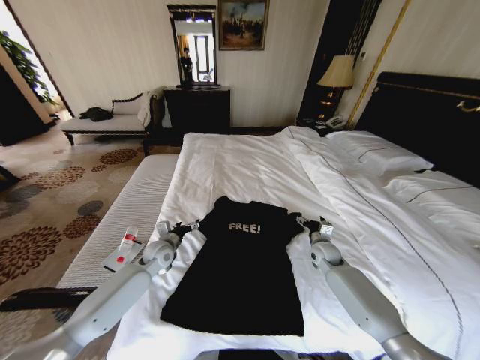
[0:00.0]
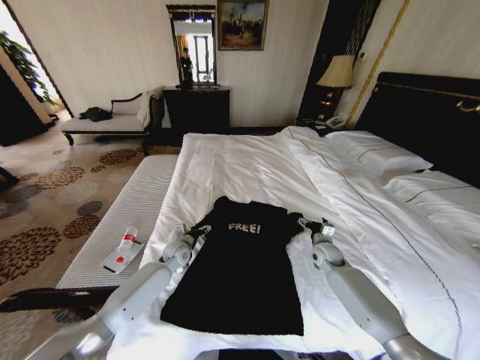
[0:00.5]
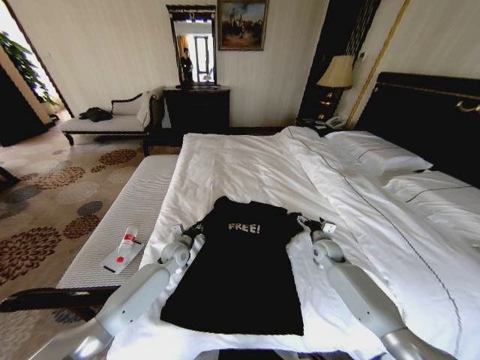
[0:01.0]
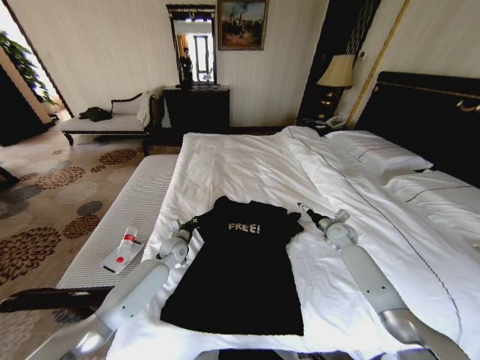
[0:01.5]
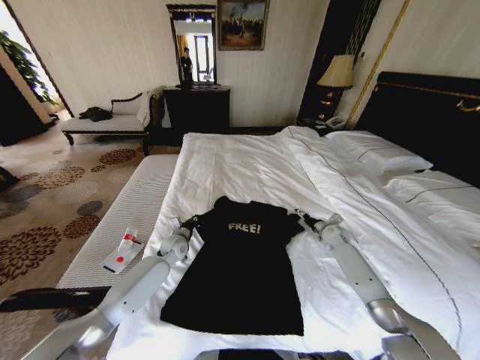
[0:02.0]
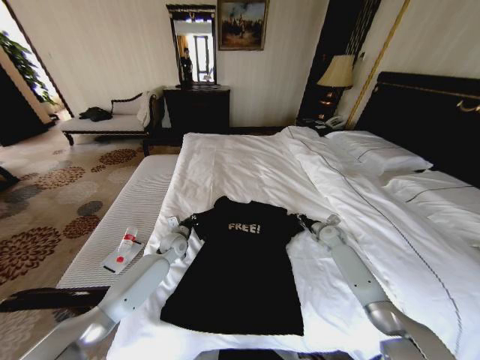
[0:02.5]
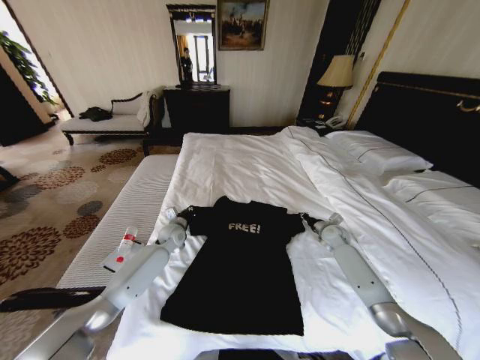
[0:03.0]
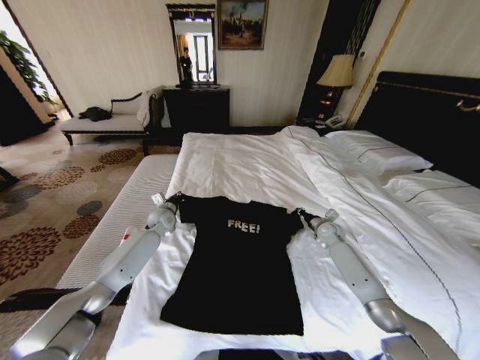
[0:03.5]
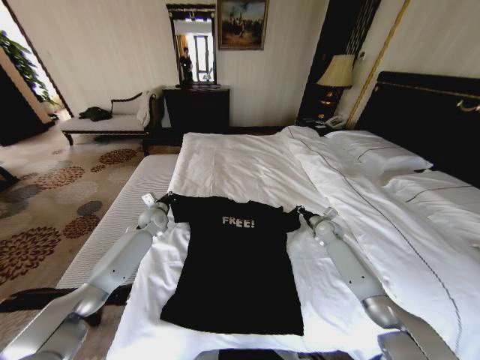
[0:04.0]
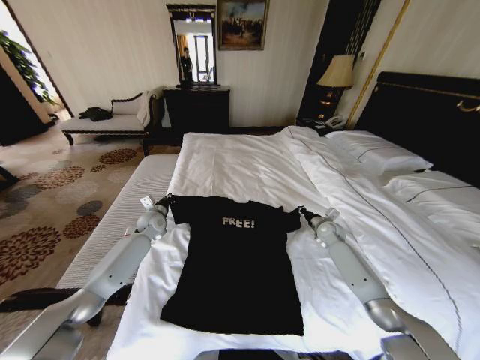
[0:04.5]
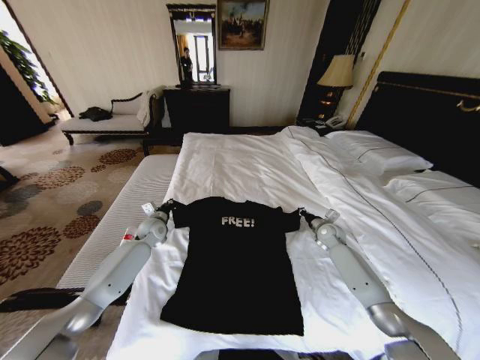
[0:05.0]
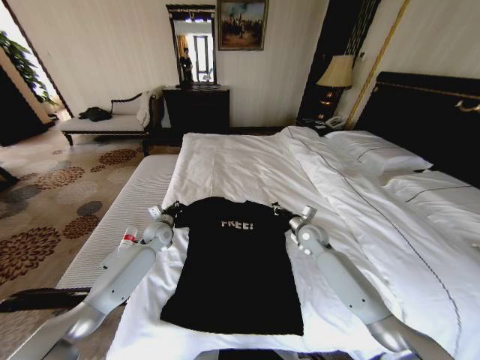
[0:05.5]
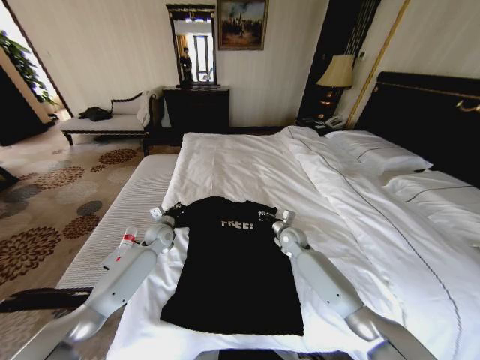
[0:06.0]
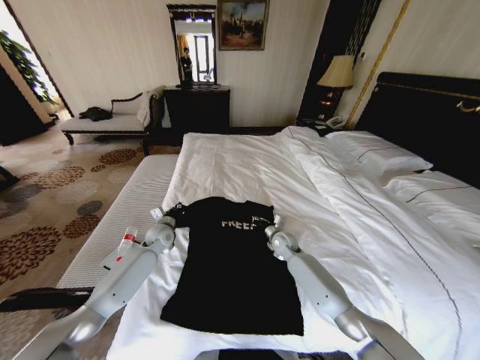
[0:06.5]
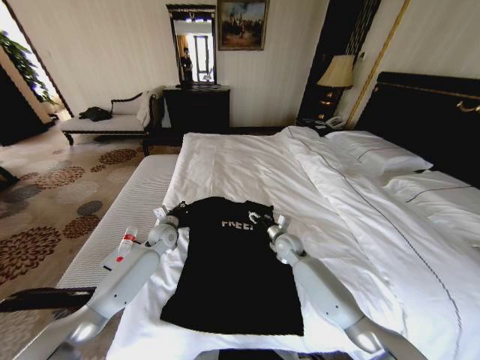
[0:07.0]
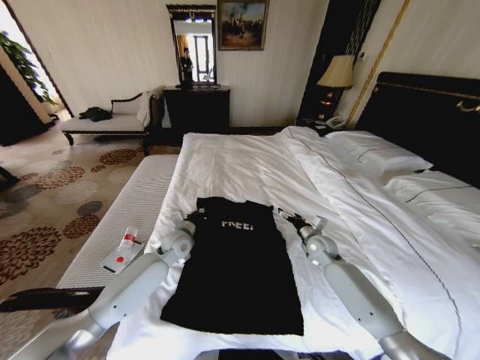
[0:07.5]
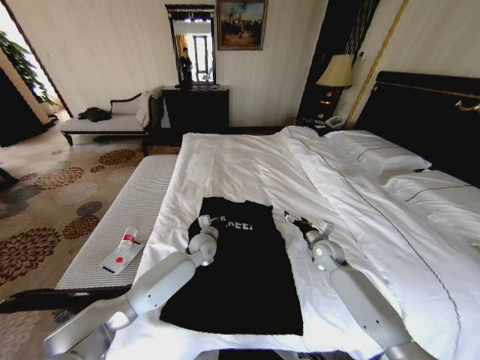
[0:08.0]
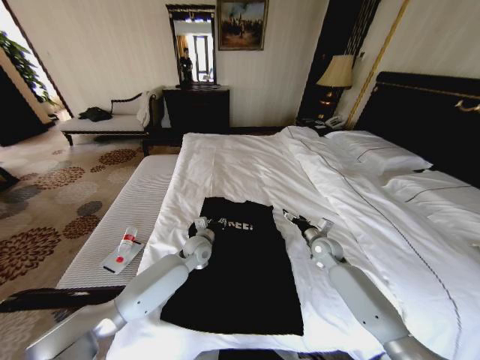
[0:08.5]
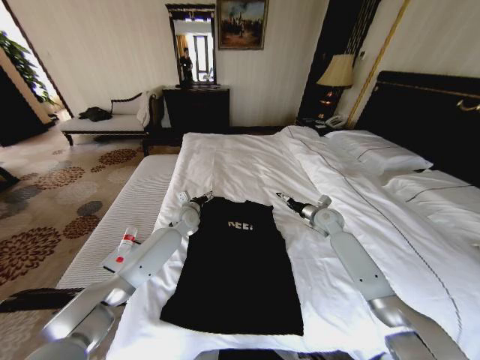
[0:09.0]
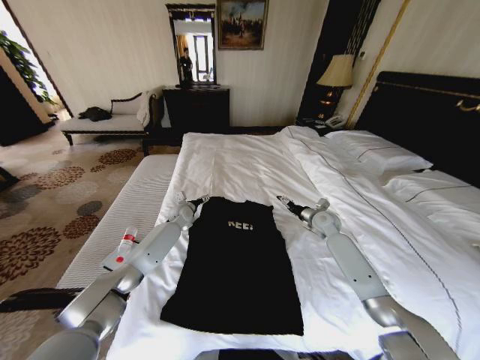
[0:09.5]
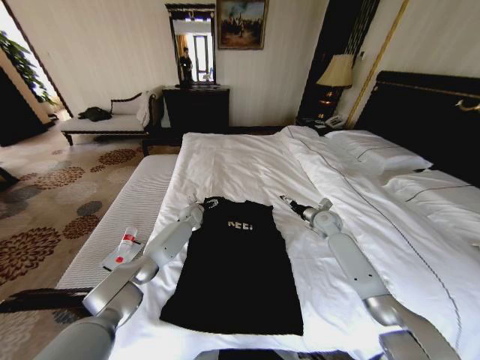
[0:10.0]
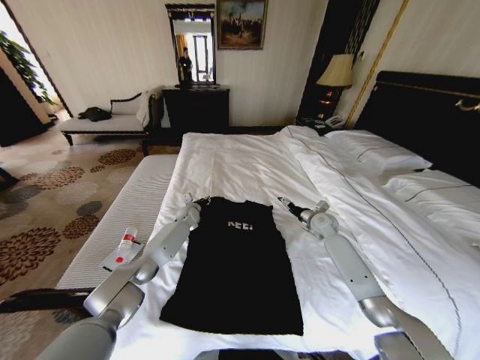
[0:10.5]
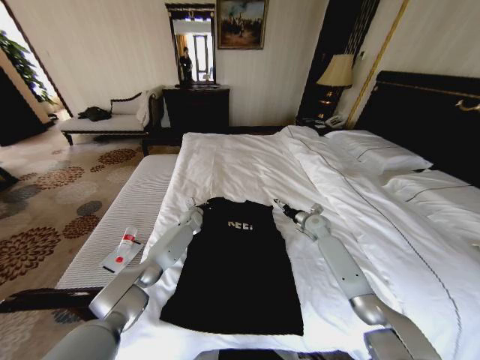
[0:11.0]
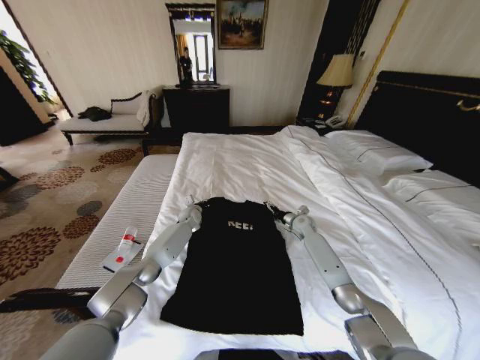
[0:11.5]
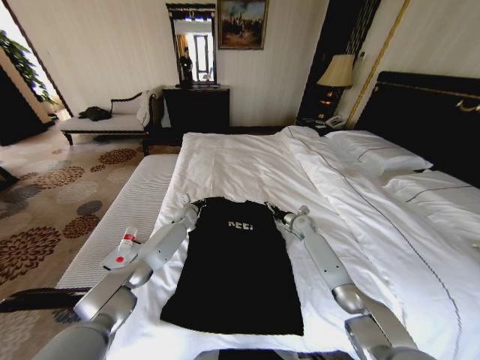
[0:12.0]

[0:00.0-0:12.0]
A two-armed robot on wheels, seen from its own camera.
Task of the whole recording: Fold the clothes on the bed.
0:00.0 to 0:02.0: The left gripper changes place by approximately 5 cm, and closes, while the right gripper moves to the right and forward, about 10 cm.
0:02.0 to 0:04.0: The right gripper closes its fingers; the left gripper moves to the left, forward and upward, roughly 15 cm.
0:04.0 to 0:06.0: The right gripper shifts some 15 cm to the left. Meanwhile the left gripper is displaced backward by about 5 cm.
0:06.0 to 0:08.0: The right gripper shifts about 10 cm to the right and backward, and opens up; the left gripper heads to the right, covering about 15 cm.
0:08.0 to 0:10.0: The left gripper moves forward and to the left, roughly 15 cm, and opens its fingers. Meanwhile the right gripper is displaced forward and upward by approximately 10 cm.
0:10.0 to 0:12.0: The right gripper is displaced downward and to the left by approximately 10 cm; the left gripper closes up.

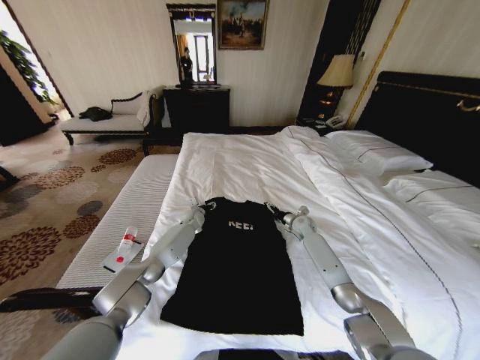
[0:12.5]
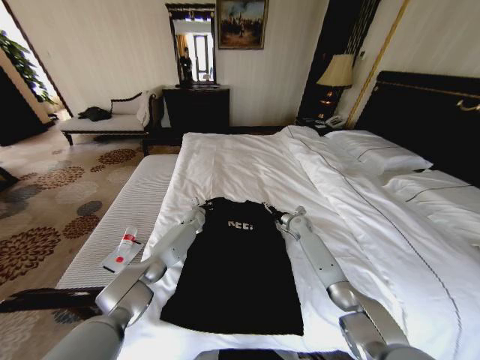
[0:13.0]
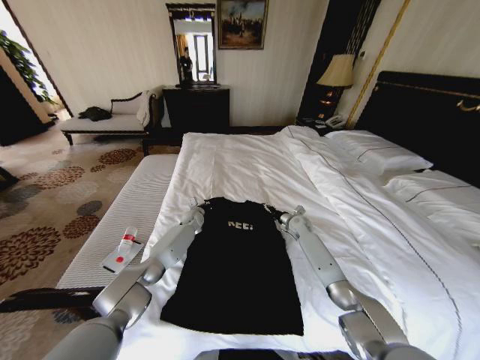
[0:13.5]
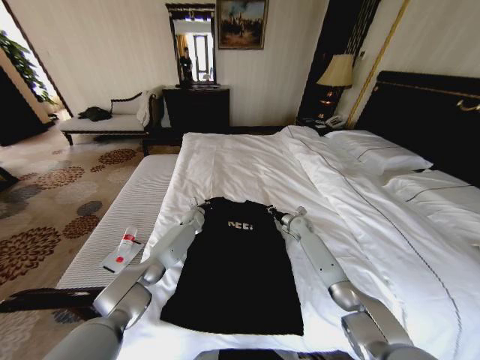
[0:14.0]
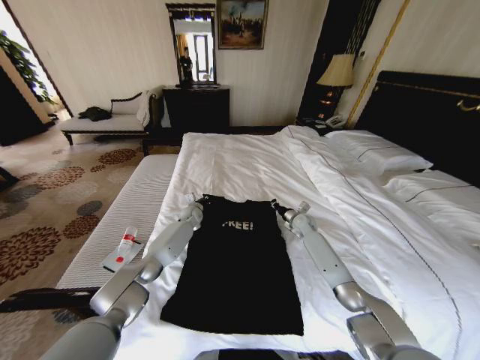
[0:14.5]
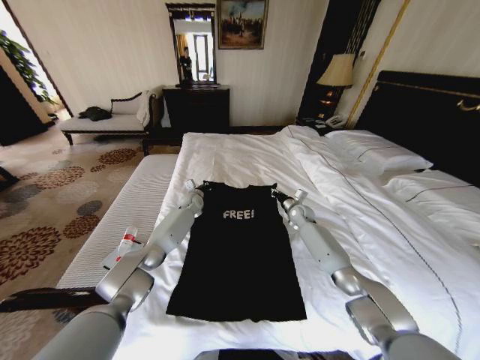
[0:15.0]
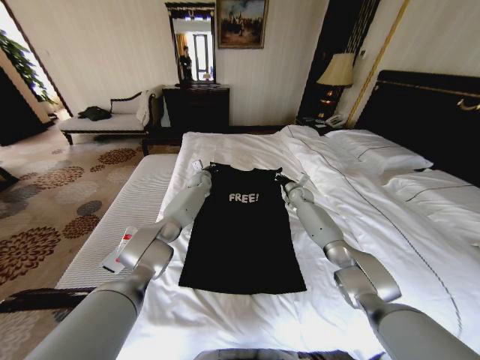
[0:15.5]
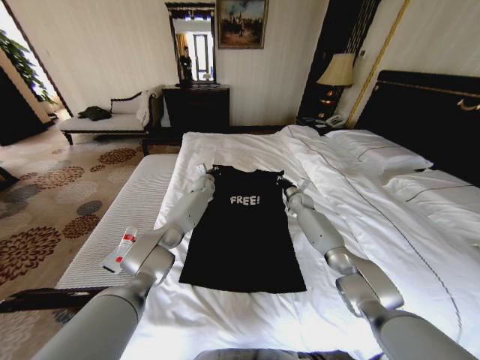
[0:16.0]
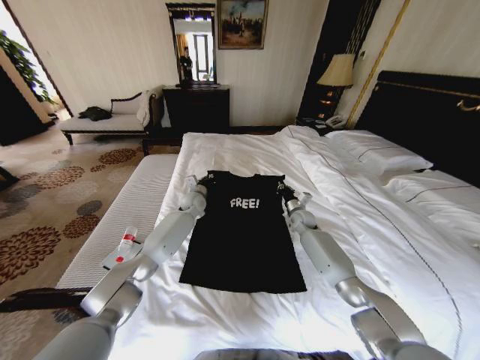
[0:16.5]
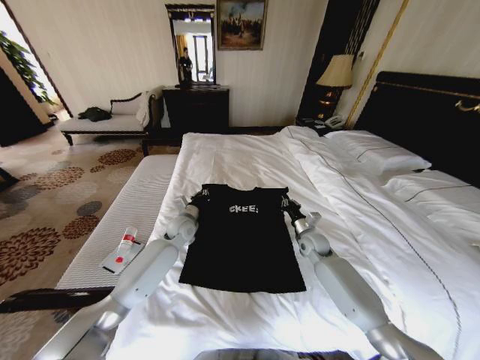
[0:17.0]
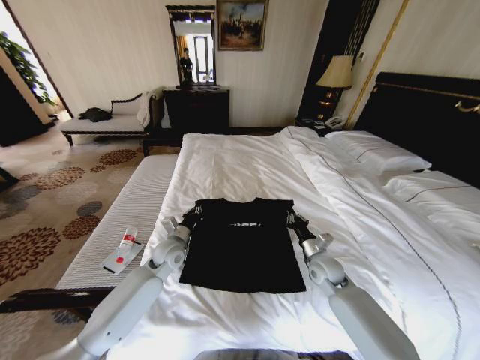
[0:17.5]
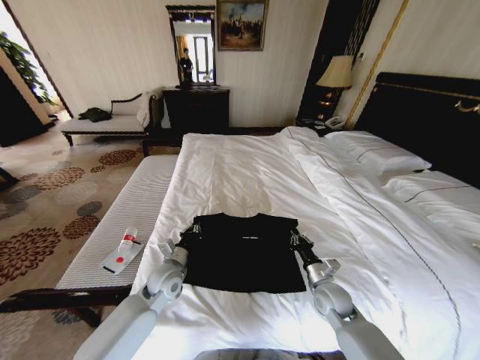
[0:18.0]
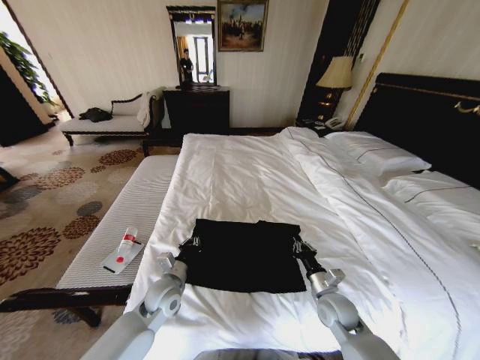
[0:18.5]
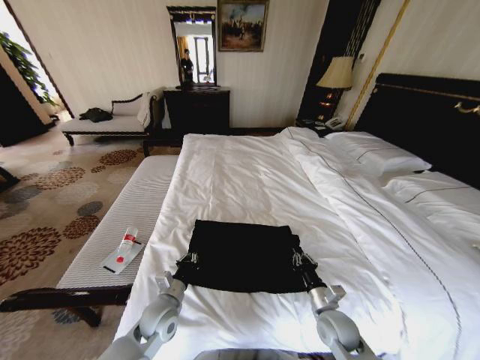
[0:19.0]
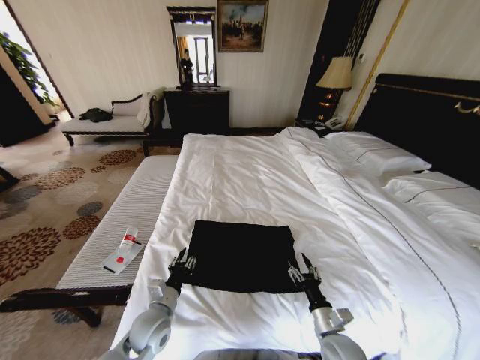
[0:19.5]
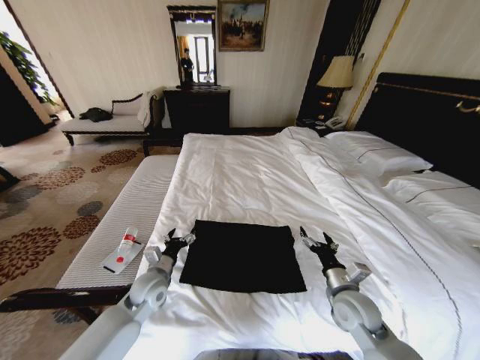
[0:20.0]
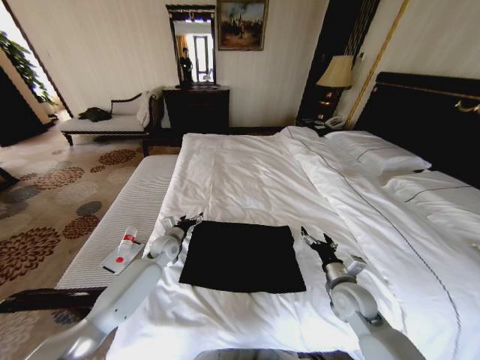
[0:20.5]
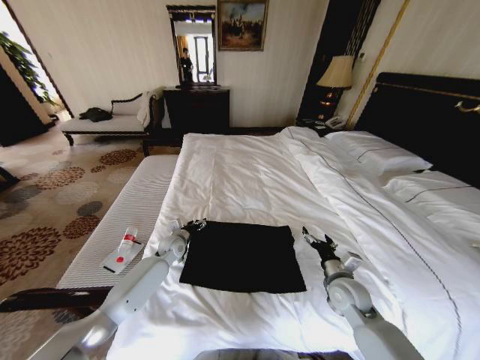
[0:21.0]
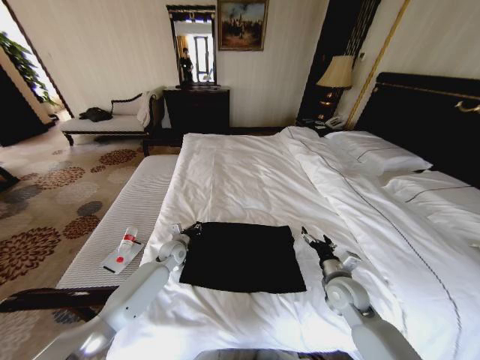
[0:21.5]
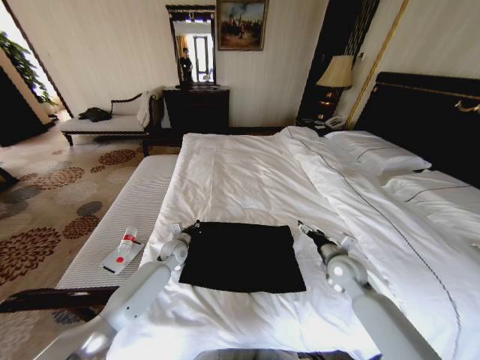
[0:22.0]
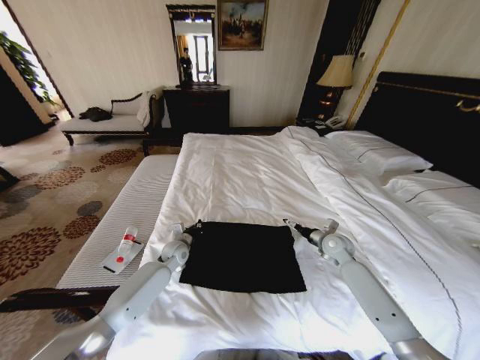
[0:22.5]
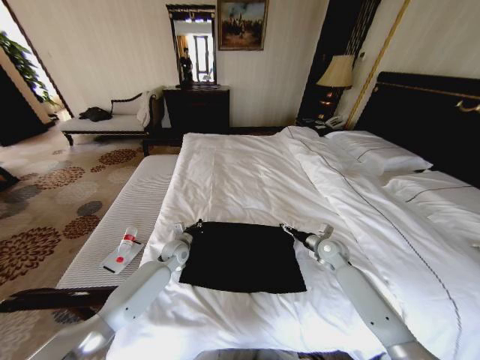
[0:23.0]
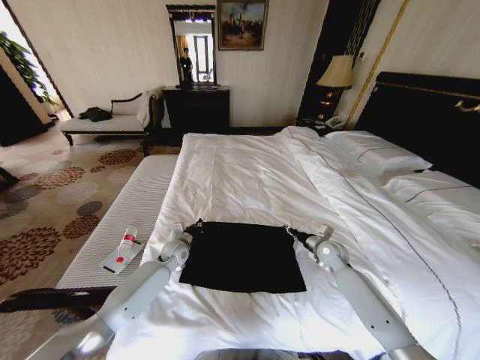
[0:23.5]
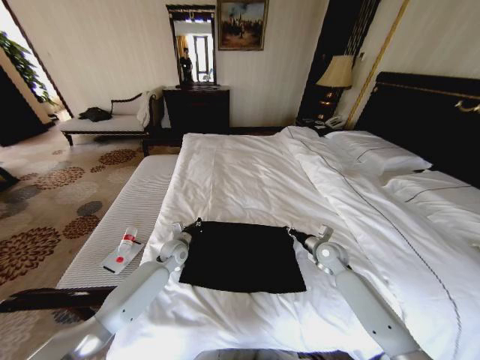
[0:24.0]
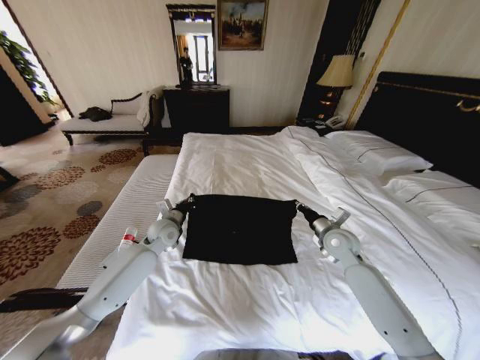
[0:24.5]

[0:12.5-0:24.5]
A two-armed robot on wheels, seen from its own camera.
Task of the whole recording: Fold the clothes on the bed.
0:12.5 to 0:14.5: The left gripper closes its fingers. The right gripper closes its fingers.
0:14.5 to 0:16.5: The right gripper moves some 10 cm forward and comes back. Meanwhile the left gripper shifts some 10 cm upward.
0:16.5 to 0:18.5: The grippers both shift backward by some 30 cm.
0:18.5 to 0:20.5: The left gripper is displaced forward by roughly 15 cm, and opens up. The right gripper heads upward, covering roughly 5 cm, and opens up.
0:20.5 to 0:22.5: The right gripper travels forward by about 15 cm. Meanwhile the left gripper closes its fingers.
0:22.5 to 0:24.5: The left gripper heads upward, covering approximately 10 cm. The right gripper travels upward by approximately 5 cm, and closes its fingers.

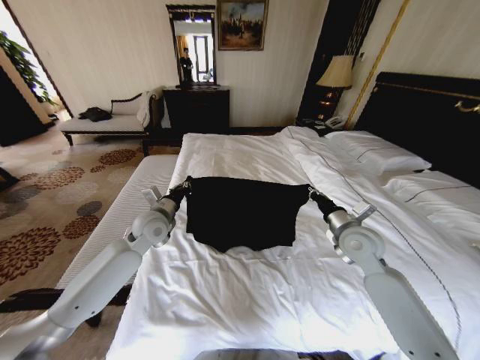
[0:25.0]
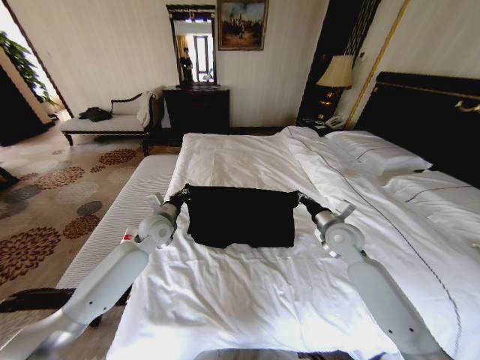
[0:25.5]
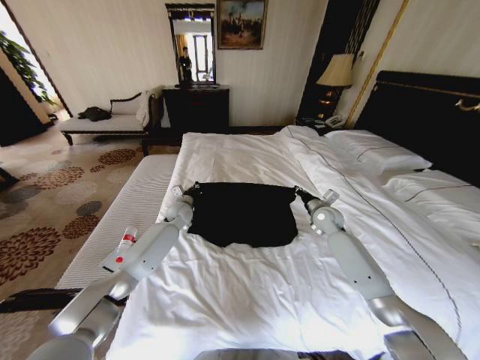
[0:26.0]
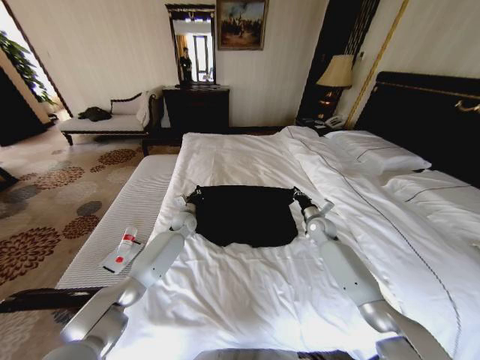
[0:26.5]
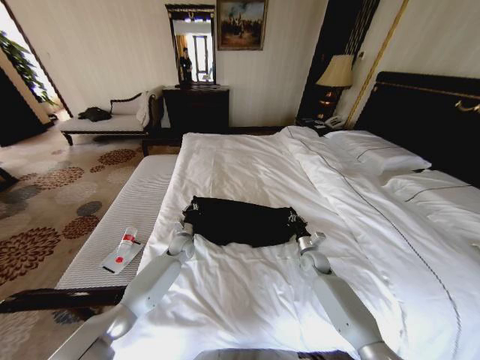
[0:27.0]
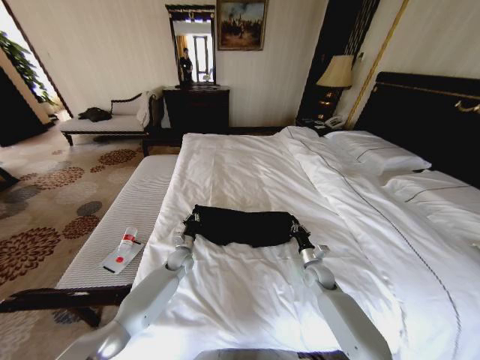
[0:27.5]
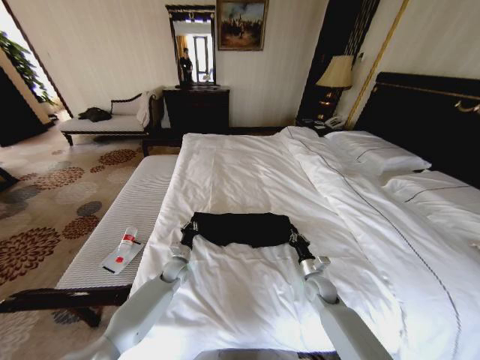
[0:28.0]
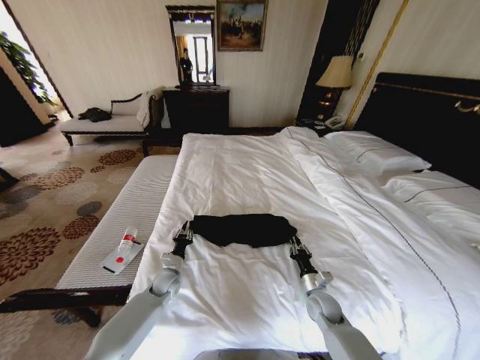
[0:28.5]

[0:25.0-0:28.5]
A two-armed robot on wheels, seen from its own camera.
Task of the whole recording: Fold the clothes on the bed.
0:25.0 to 0:27.0: Both grippers travel together downward, some 20 cm.
0:27.0 to 0:28.5: The right gripper moves backward, about 15 cm. The left gripper heads backward and downward, covering some 15 cm.
